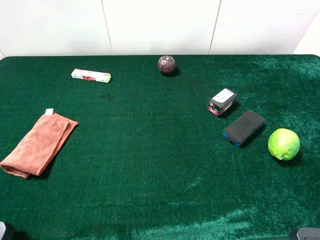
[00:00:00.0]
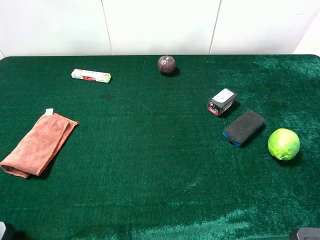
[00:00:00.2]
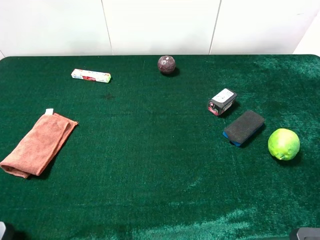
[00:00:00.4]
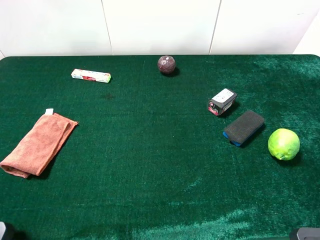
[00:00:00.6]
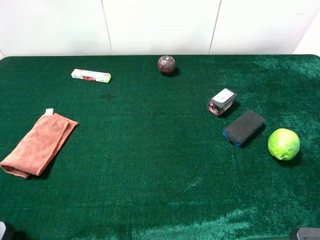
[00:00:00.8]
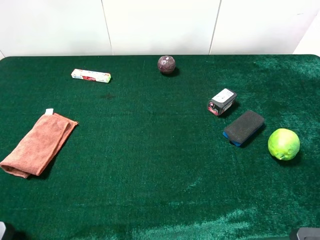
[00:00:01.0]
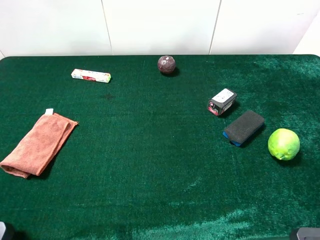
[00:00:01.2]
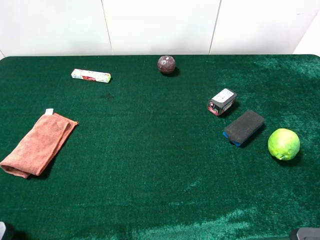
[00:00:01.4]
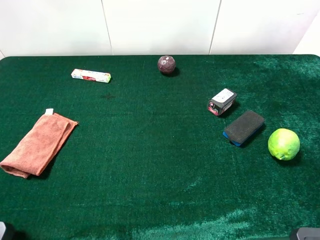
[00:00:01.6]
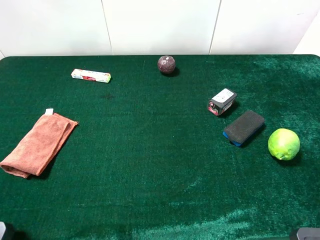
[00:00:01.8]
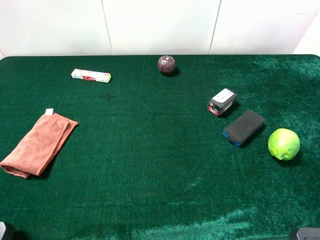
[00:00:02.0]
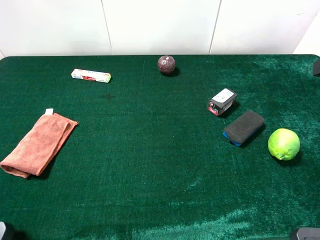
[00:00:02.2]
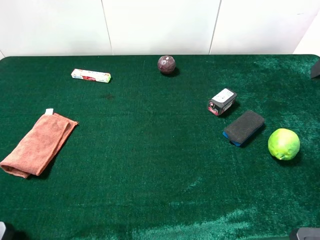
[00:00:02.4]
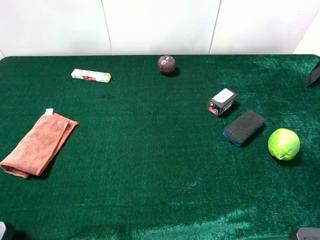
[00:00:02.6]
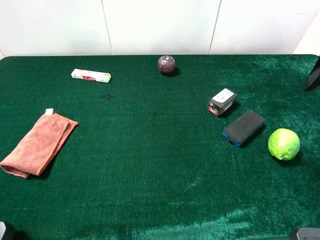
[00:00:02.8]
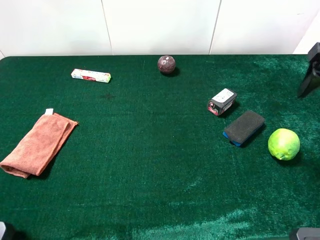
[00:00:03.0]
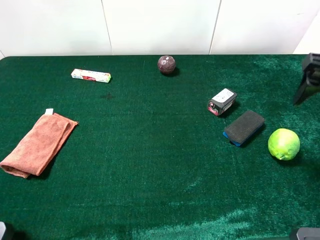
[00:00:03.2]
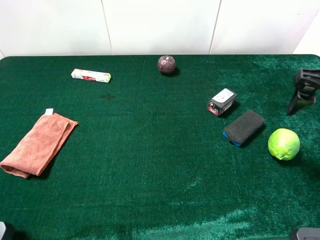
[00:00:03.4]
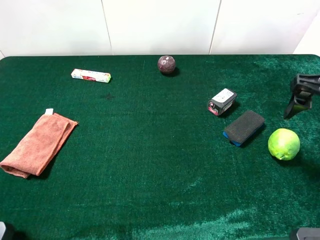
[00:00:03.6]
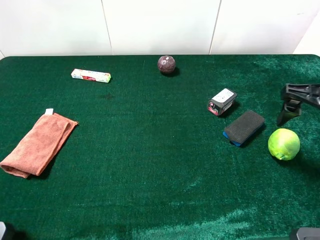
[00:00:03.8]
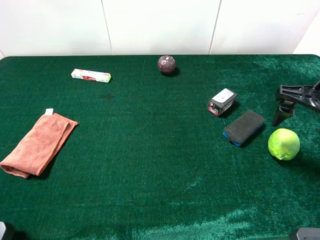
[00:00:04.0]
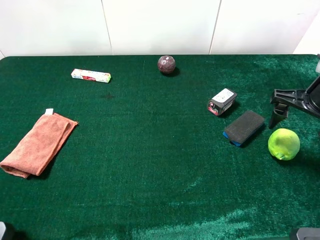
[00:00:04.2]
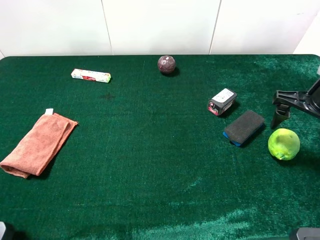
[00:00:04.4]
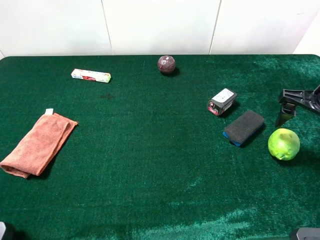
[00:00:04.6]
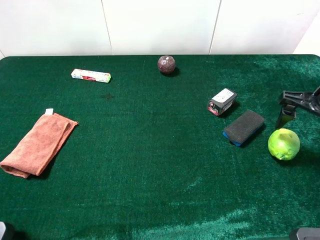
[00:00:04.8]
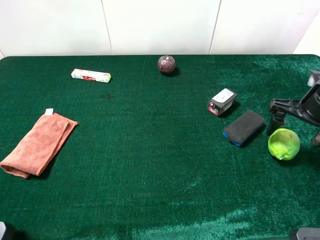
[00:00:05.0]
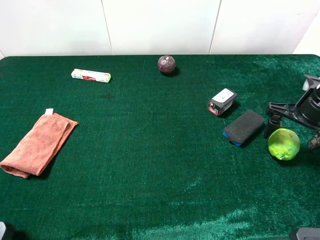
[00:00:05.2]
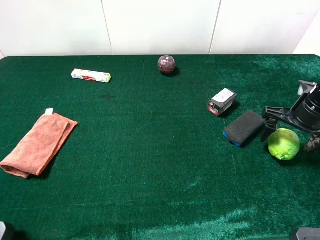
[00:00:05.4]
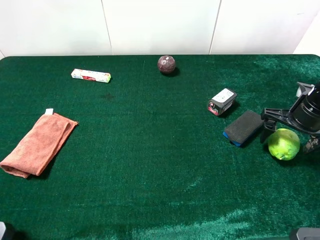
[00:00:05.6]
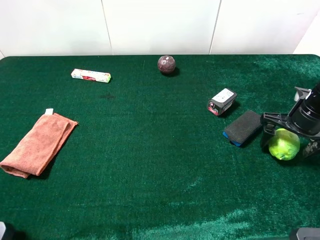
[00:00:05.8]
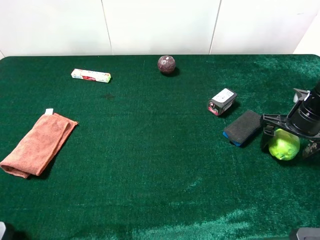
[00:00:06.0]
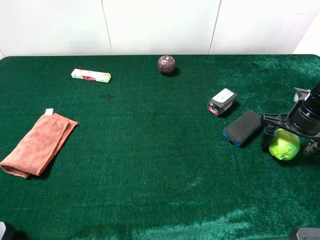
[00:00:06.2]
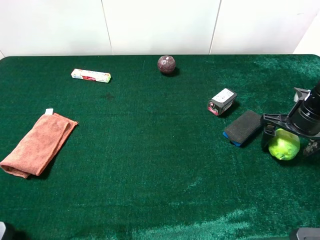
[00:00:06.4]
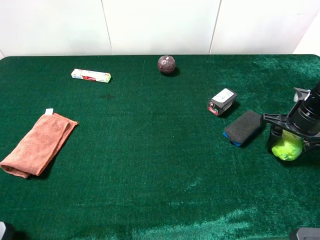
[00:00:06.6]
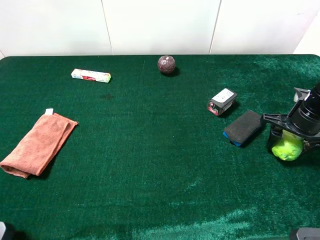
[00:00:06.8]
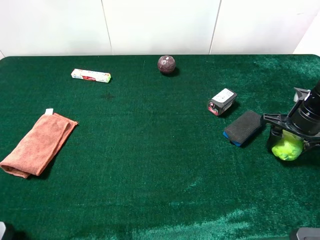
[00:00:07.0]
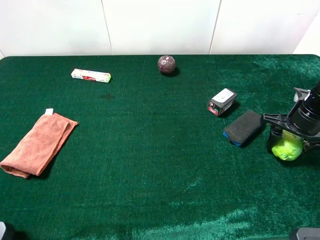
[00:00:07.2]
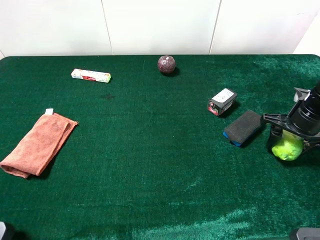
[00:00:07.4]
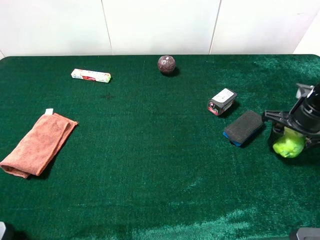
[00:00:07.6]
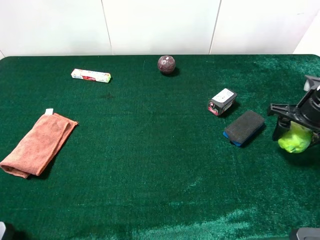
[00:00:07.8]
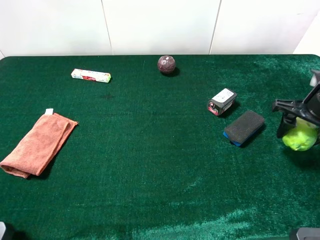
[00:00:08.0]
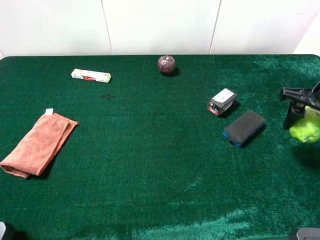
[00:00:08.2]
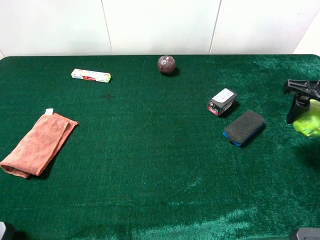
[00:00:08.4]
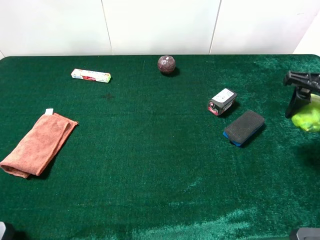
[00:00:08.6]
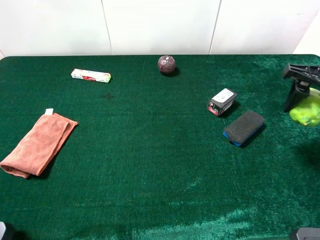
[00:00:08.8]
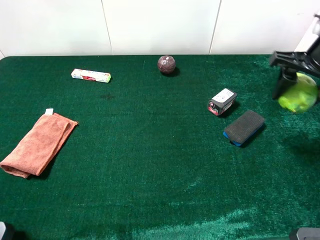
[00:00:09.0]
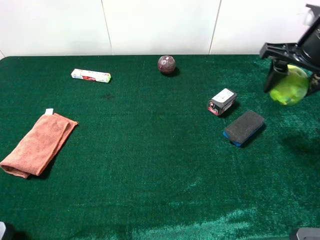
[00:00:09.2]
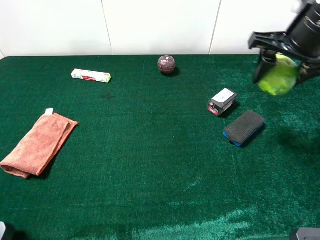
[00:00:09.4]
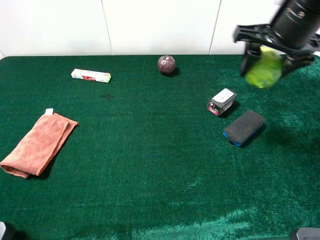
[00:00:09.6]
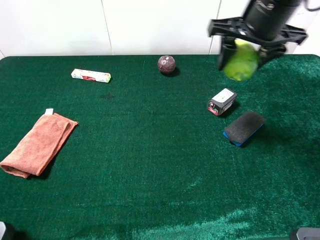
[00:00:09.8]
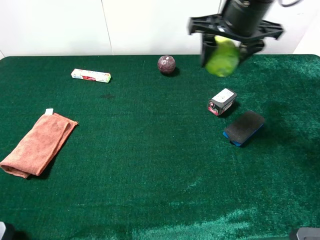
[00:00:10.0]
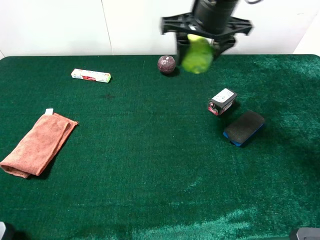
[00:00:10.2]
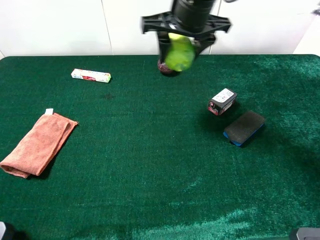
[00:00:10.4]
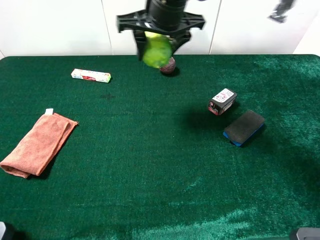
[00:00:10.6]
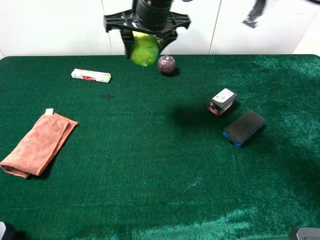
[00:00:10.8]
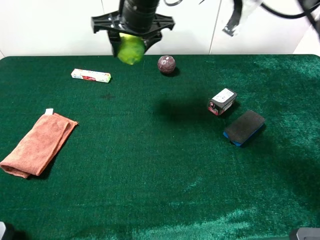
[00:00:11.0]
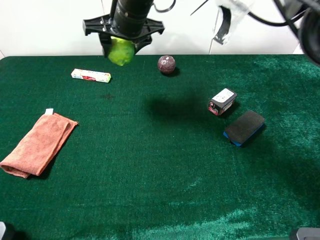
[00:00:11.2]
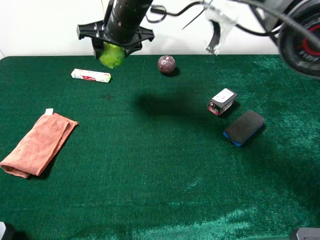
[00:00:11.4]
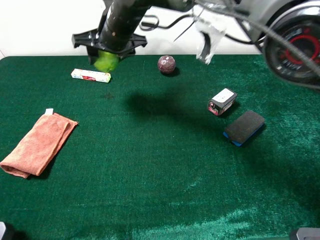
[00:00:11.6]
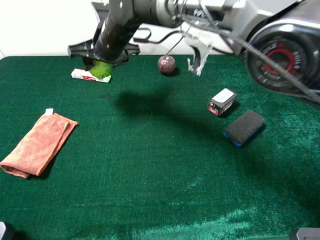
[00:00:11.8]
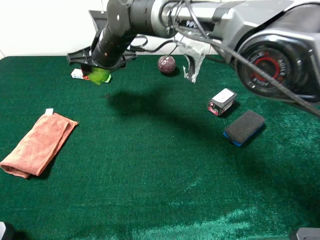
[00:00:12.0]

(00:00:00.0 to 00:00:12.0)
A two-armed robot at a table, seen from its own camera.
Task of the whole recording: the gripper move the object.
00:00:03.0 - 00:00:04.4: The right gripper moves downward, approximately 10 cm.
00:00:04.4 - 00:00:06.0: The right gripper travels downward by about 10 cm.
00:00:06.0 - 00:00:07.6: The right gripper closes.
00:00:07.6 - 00:00:09.0: The right gripper moves upward, approximately 15 cm.
00:00:09.0 - 00:00:10.4: The right gripper travels to the left by about 20 cm.
00:00:10.4 - 00:00:12.0: The right gripper is displaced to the left and downward by about 20 cm.

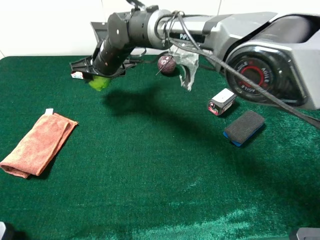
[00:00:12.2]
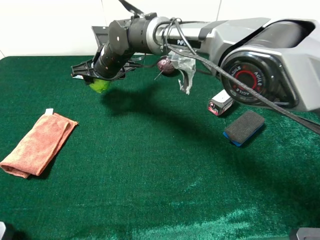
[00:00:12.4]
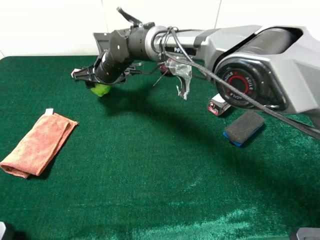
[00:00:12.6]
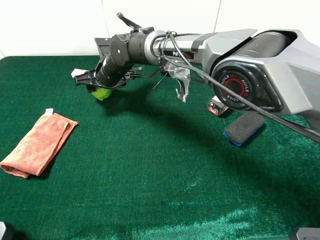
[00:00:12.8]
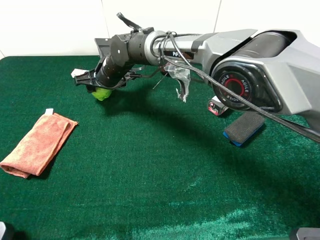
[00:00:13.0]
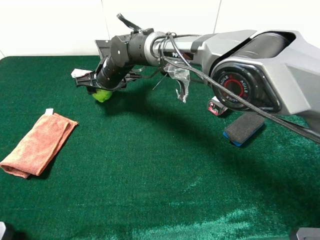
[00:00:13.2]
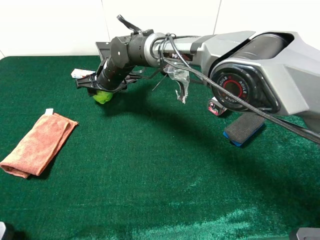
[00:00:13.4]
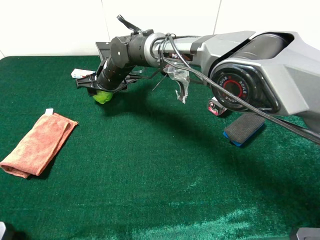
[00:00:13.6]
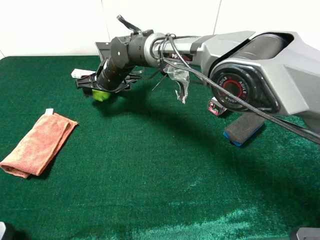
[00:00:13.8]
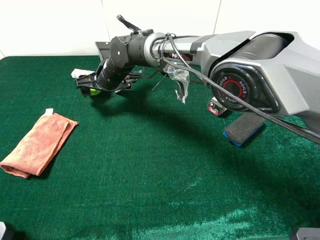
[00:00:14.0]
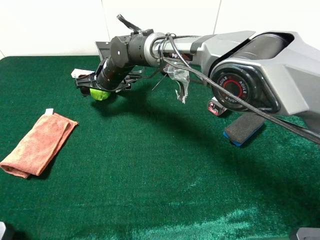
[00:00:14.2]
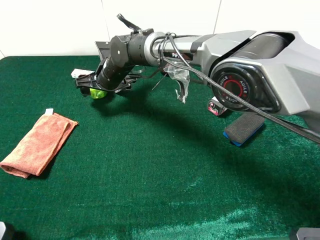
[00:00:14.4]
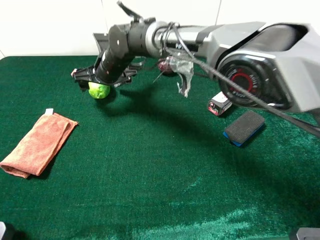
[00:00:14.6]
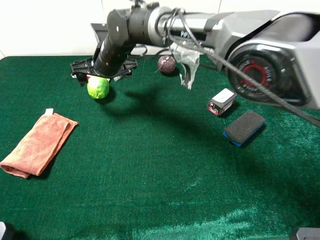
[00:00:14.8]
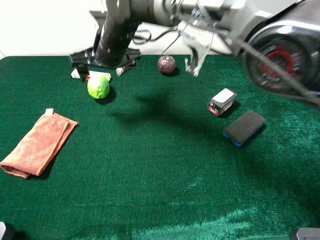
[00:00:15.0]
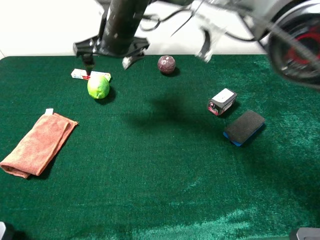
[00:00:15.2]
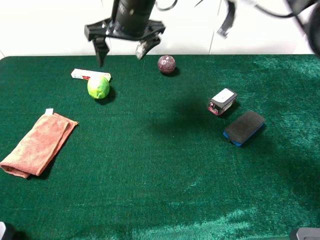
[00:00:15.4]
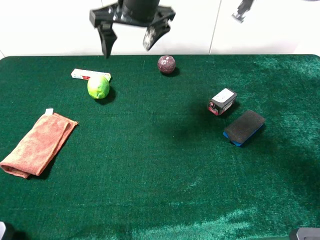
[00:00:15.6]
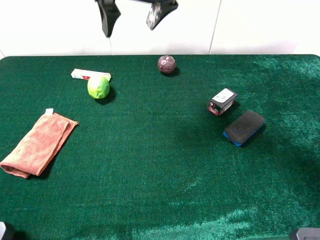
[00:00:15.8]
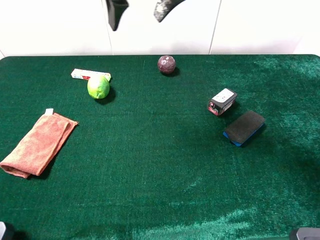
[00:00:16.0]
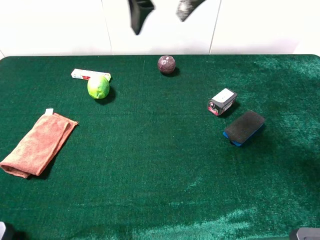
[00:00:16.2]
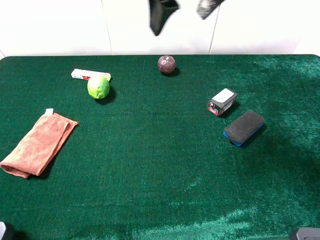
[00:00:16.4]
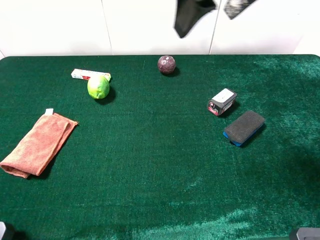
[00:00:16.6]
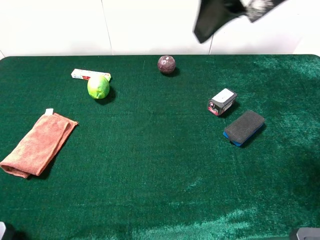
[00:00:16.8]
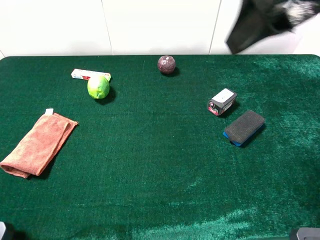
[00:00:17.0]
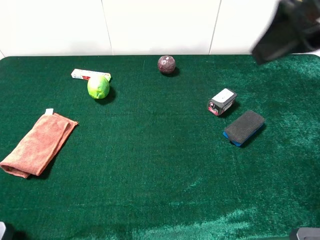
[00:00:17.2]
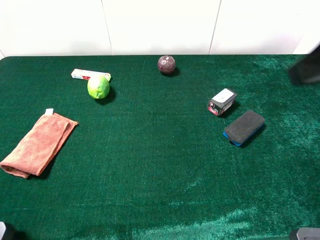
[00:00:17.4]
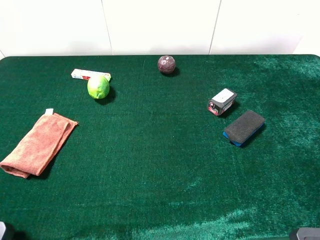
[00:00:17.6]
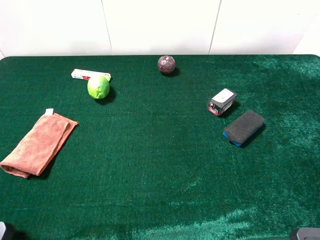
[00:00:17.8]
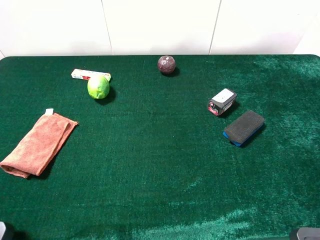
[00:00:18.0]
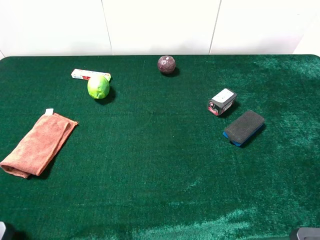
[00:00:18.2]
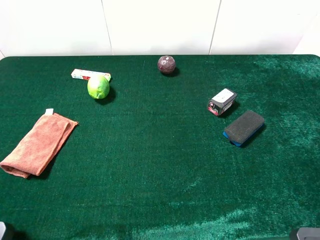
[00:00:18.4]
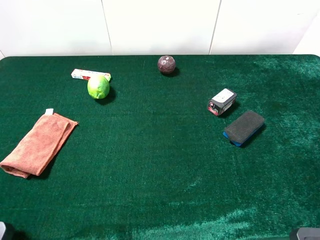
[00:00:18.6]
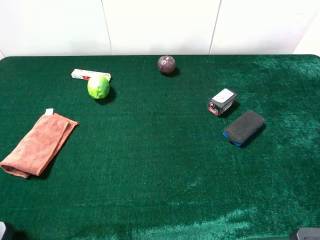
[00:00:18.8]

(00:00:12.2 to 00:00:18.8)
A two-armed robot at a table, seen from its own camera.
Task of the whole recording: the gripper move the object.
00:00:12.2 - 00:00:13.8: The right gripper opens up.
00:00:13.8 - 00:00:15.4: The right gripper goes roughly 15 cm upward.
00:00:15.4 - 00:00:17.2: The right gripper goes some 35 cm to the right, backward and upward.
00:00:17.2 - 00:00:18.8: The right gripper shifts about 20 cm backward, to the right and downward.
